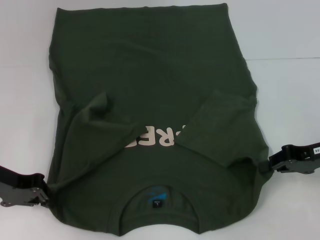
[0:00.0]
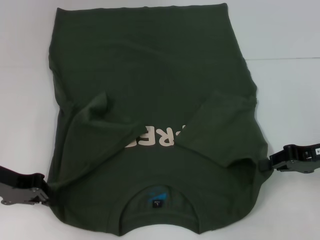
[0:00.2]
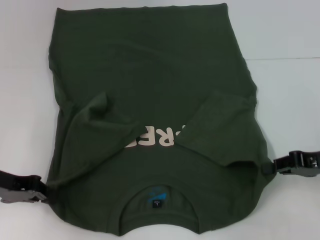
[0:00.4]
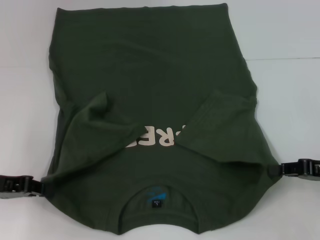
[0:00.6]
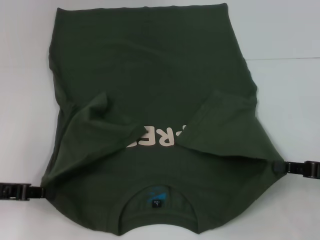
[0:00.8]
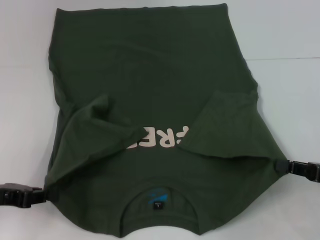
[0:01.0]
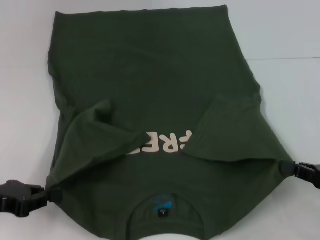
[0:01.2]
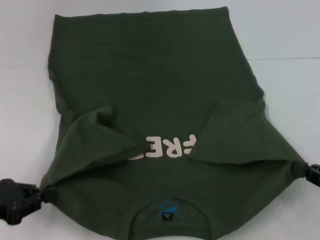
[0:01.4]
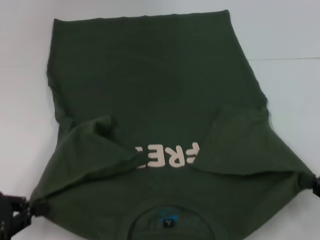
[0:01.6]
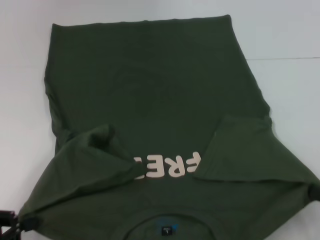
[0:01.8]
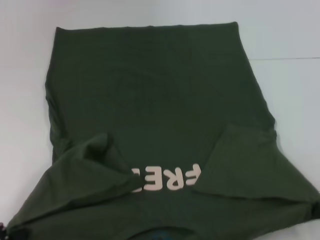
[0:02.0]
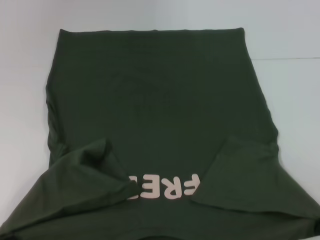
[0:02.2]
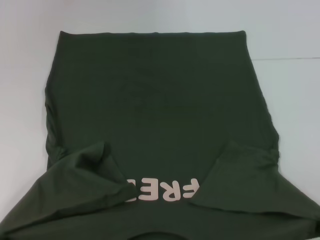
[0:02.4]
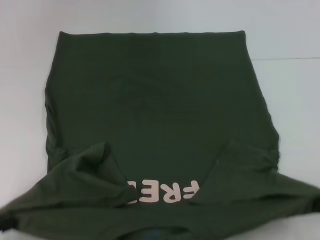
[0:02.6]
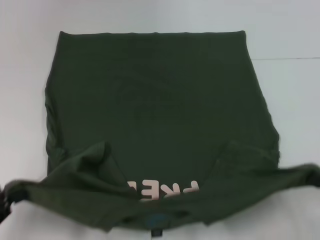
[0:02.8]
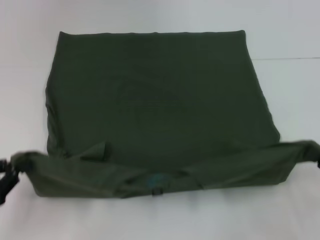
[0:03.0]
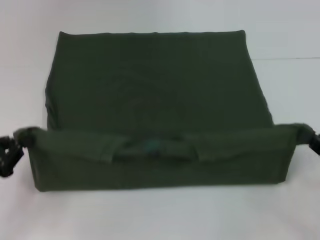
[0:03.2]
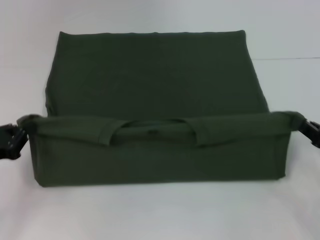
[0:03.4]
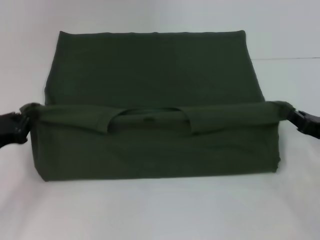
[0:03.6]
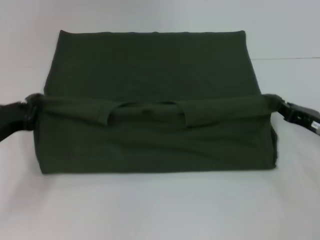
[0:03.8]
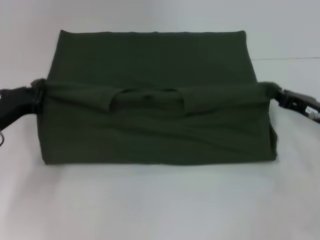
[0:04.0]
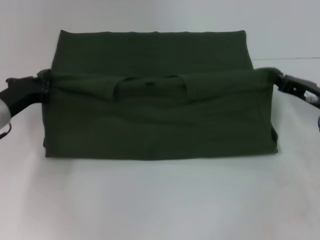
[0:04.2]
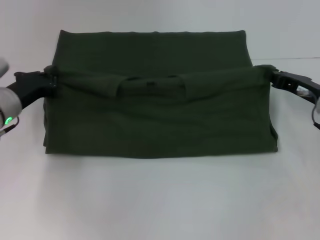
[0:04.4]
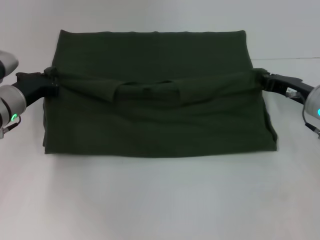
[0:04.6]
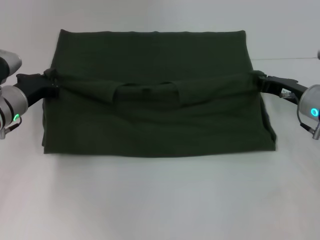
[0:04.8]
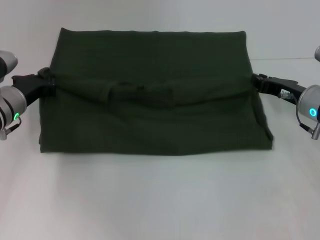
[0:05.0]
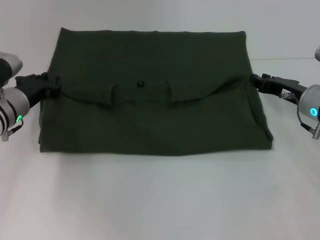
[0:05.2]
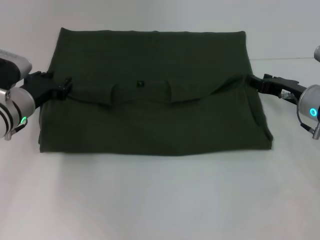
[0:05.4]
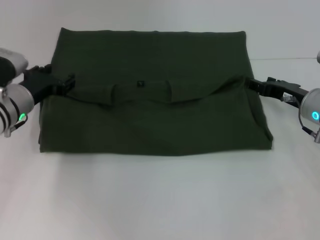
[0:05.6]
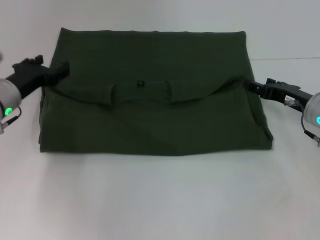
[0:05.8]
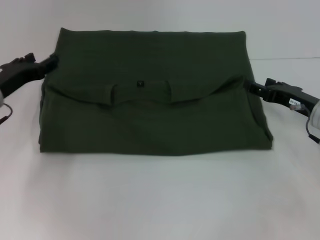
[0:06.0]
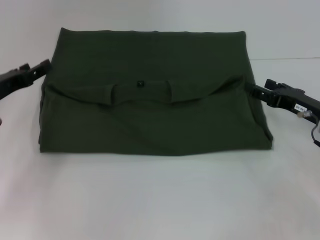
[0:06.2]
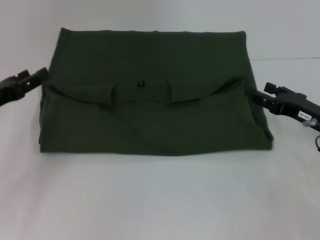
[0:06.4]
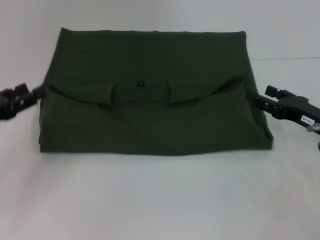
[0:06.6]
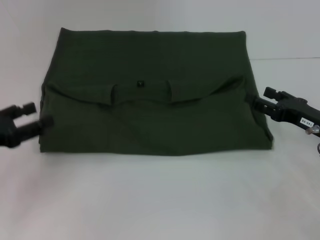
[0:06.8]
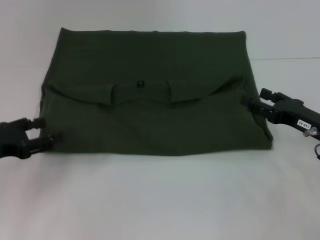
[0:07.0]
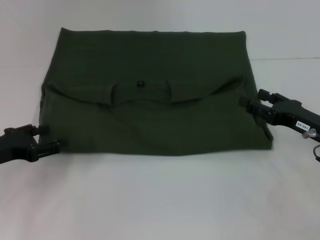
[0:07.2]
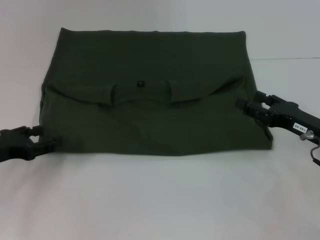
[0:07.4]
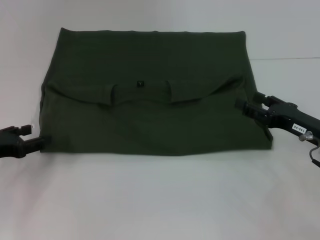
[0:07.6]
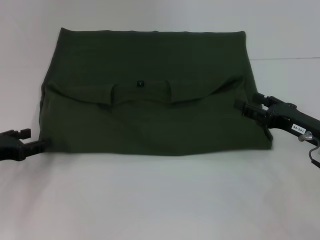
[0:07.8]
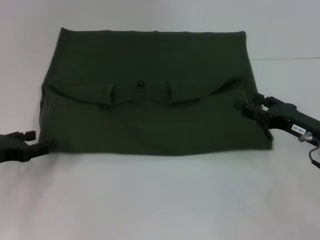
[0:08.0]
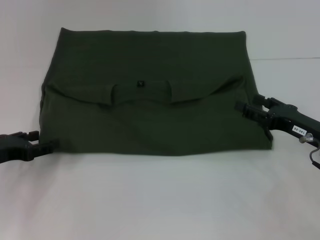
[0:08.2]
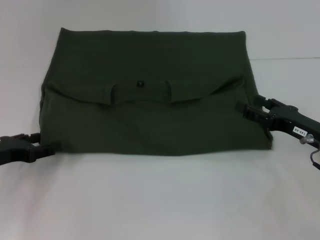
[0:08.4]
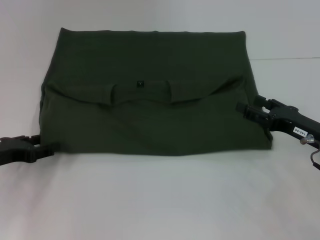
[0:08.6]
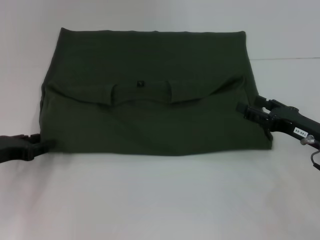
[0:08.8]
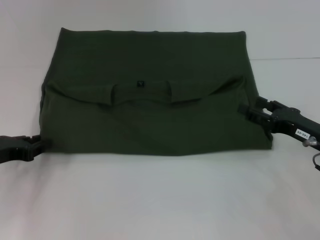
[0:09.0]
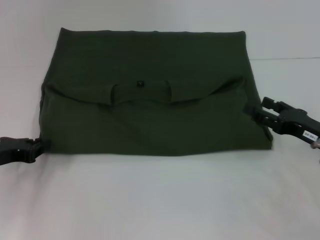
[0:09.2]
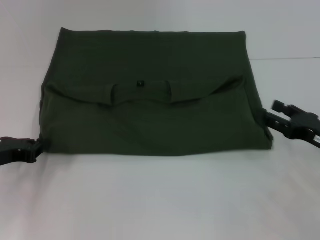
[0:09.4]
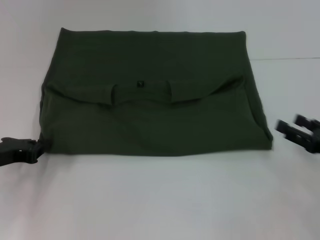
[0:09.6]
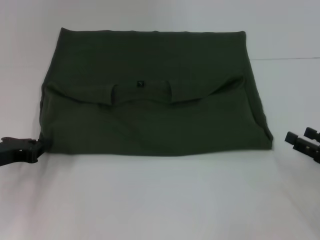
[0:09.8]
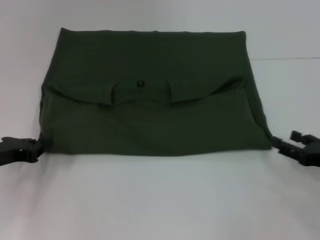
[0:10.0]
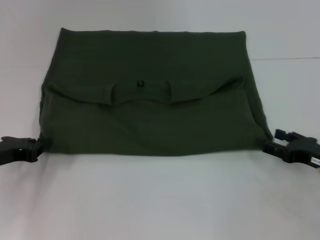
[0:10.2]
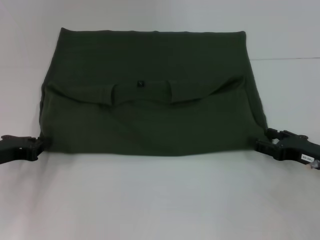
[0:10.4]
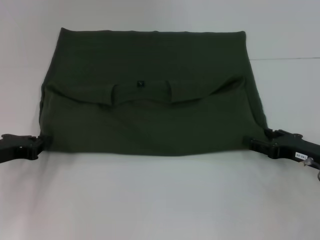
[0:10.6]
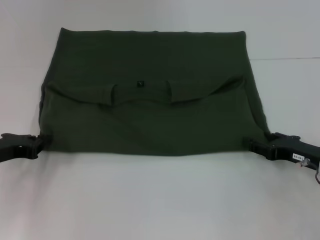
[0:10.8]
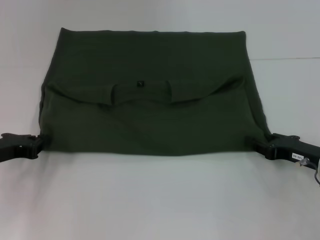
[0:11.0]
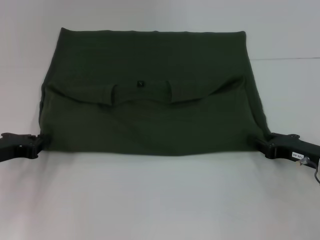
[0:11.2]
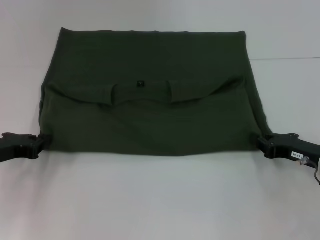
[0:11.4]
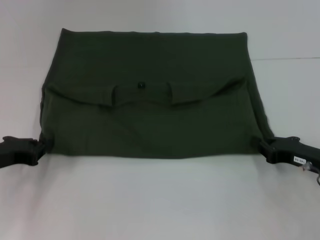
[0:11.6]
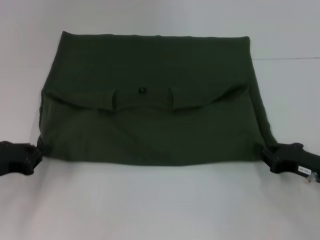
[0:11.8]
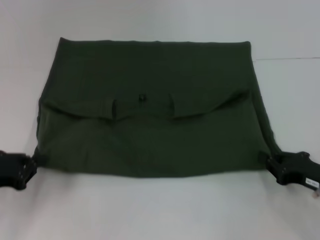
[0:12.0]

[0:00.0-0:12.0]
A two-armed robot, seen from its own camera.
Step, 0:01.2 to 0:05.4: Fold the clothes with your left hand.
Step, 0:01.2 to 0:05.4: Fold the clothes with your right hand.
0:00.0 to 0:01.6: The left gripper is displaced backward by roughly 10 cm, while the right gripper is displaced backward and downward by about 15 cm.
0:01.6 to 0:03.0: The right gripper travels backward and back again, about 10 cm each way. The left gripper goes backward and returns, roughly 10 cm each way.
0:03.0 to 0:04.4: The left gripper travels forward and to the right by approximately 20 cm. The right gripper shifts some 20 cm forward.
0:04.4 to 0:06.0: The right gripper opens its fingers; the left gripper opens.
0:06.0 to 0:07.6: The right gripper travels backward by roughly 5 cm. The left gripper is displaced backward by about 10 cm.
0:07.6 to 0:09.0: There are only small adjustments of the grippers.
0:10.4 to 0:12.0: The right gripper closes up.

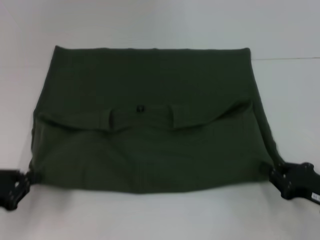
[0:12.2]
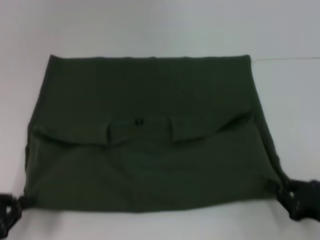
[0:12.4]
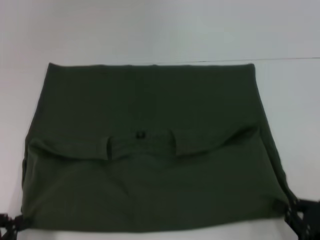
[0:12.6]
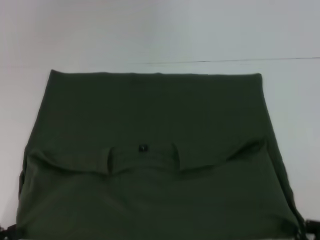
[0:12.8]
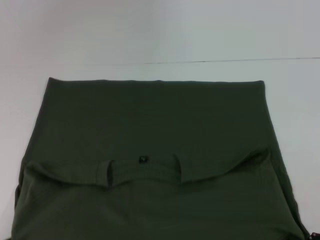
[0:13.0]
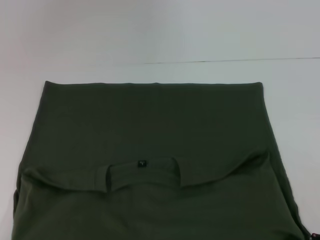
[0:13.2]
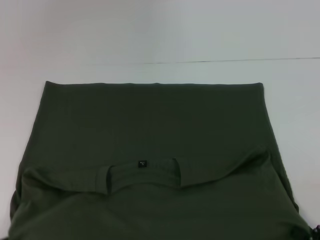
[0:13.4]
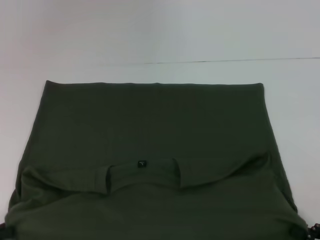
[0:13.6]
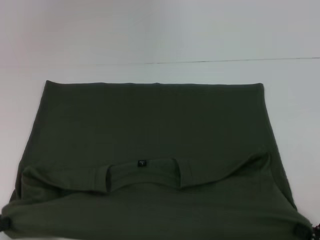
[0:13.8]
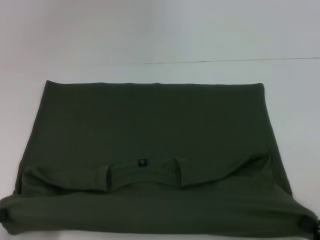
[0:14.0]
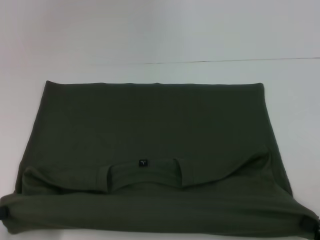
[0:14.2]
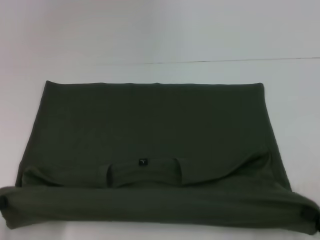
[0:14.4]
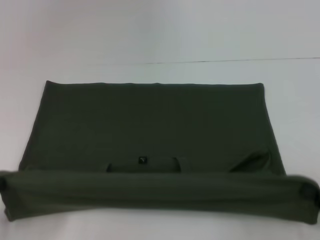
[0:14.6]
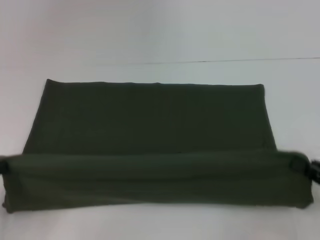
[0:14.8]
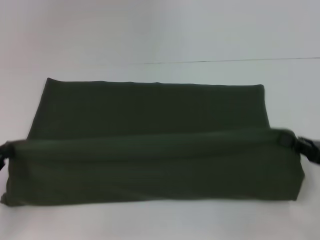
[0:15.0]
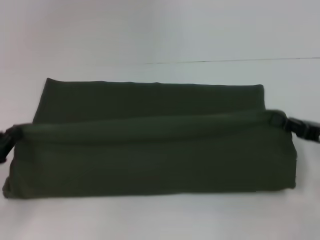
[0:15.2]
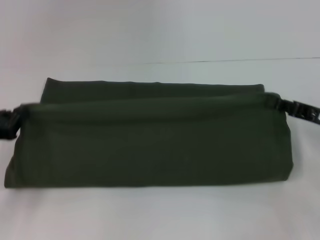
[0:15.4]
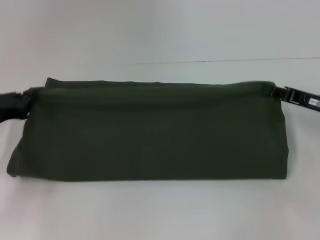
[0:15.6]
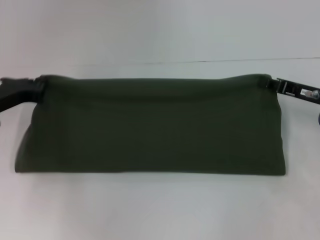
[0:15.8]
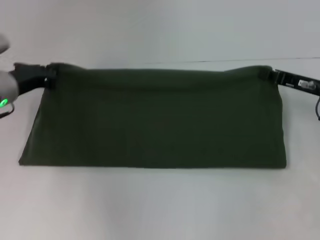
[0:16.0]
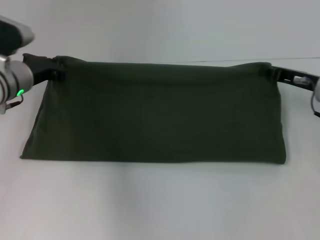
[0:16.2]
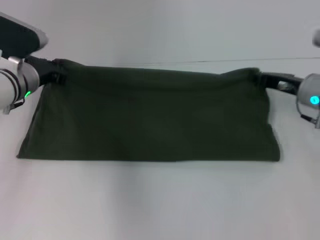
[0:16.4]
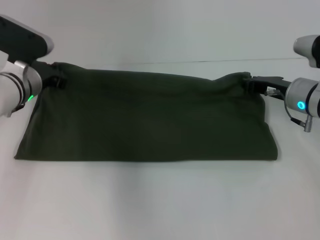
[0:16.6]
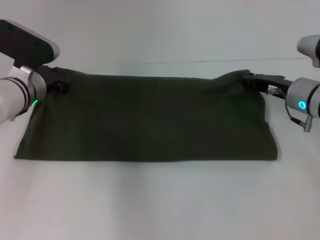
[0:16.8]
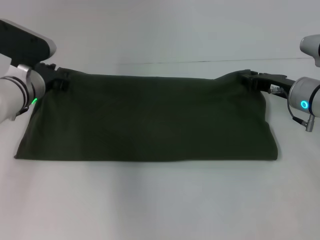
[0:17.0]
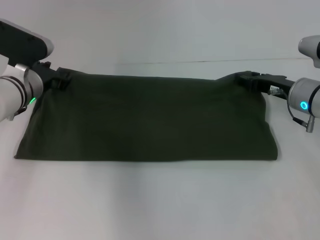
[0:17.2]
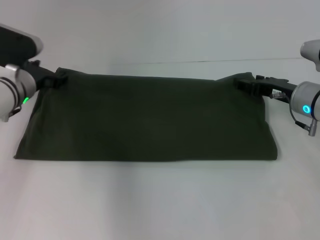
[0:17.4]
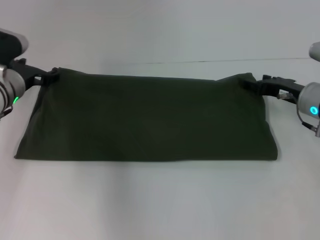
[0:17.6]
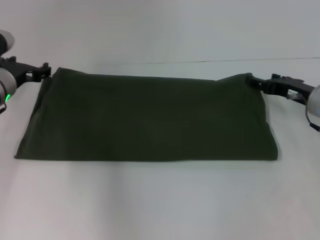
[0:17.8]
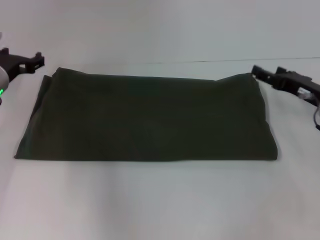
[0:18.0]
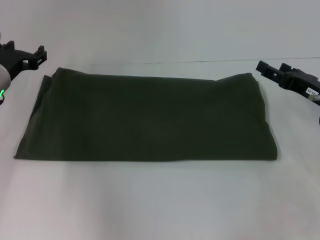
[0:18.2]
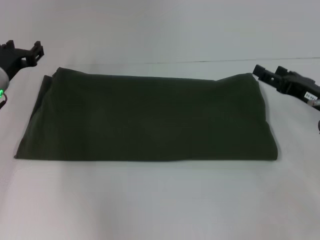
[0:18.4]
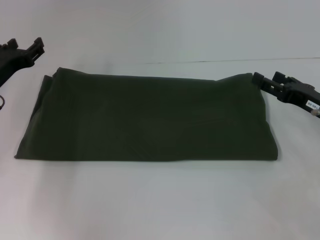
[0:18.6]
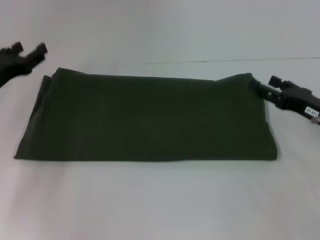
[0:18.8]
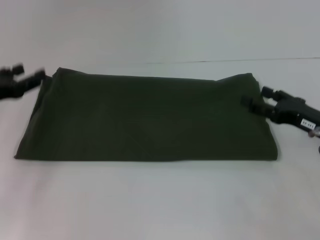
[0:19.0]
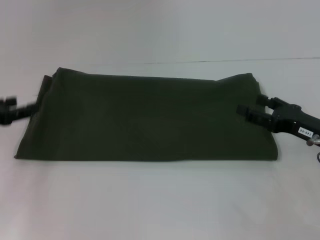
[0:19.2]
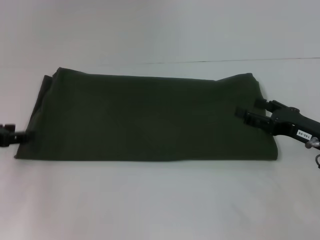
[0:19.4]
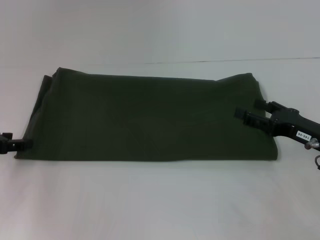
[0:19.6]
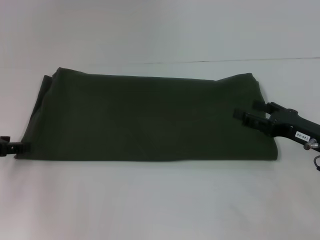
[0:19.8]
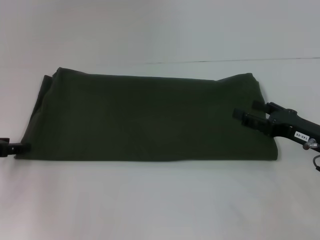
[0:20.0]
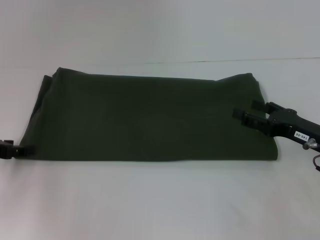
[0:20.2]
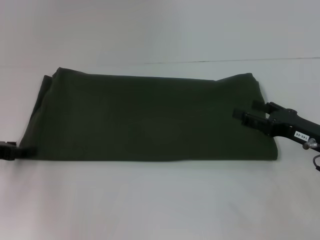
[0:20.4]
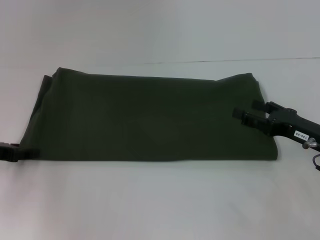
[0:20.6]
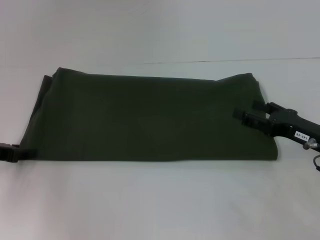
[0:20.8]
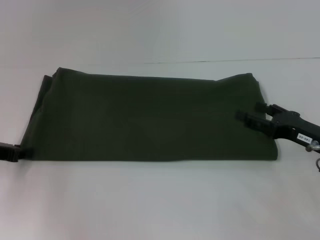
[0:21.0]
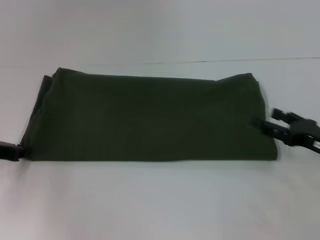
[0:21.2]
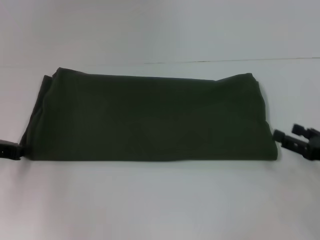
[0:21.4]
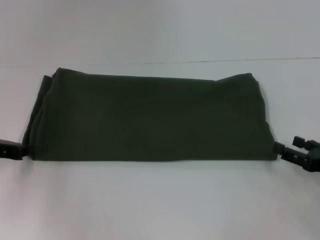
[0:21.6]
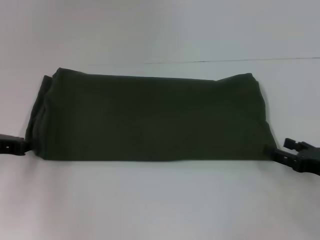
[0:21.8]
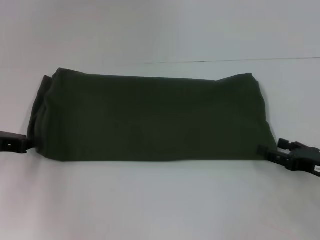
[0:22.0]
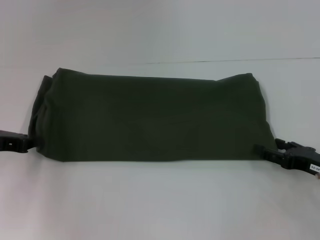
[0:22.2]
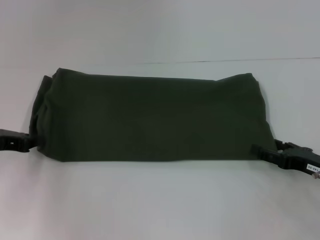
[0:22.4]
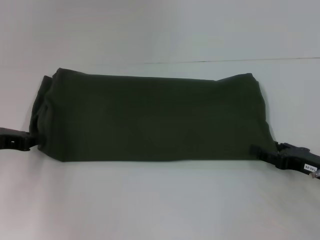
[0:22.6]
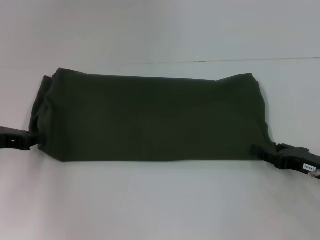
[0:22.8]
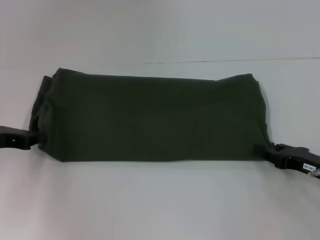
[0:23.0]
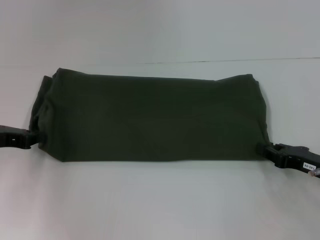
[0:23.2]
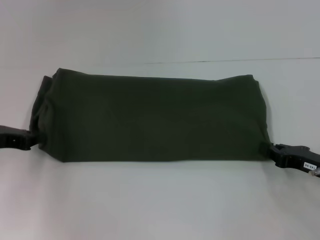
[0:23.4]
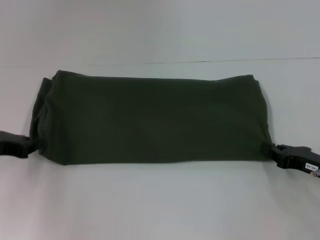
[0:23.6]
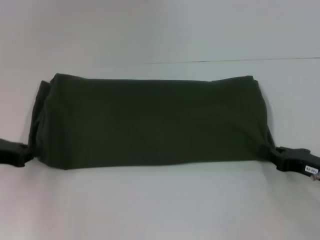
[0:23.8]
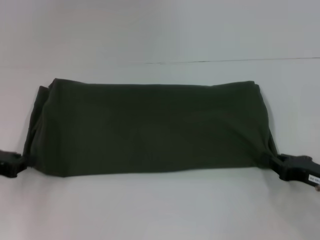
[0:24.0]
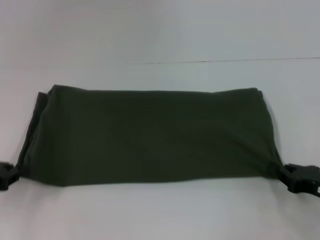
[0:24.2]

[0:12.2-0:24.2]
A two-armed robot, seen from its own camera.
Step, 0:13.8 to 0:20.2: Fold the clothes with your right hand.
0:12.2 to 0:13.8: Both grippers move backward, approximately 10 cm.
0:13.8 to 0:15.2: The right gripper is displaced forward by roughly 15 cm. The left gripper shifts approximately 10 cm forward.
0:15.2 to 0:16.6: The left gripper is displaced forward and to the right by some 20 cm. Meanwhile the right gripper shifts about 15 cm forward and to the left.
0:16.6 to 0:18.2: The left gripper opens up; the right gripper is displaced backward and to the right by about 5 cm, and opens its fingers.
0:18.2 to 0:19.8: The left gripper shifts approximately 15 cm backward and to the left; the right gripper goes some 5 cm backward.
0:21.2 to 0:22.6: The grippers move only a little.
0:22.6 to 0:24.2: The right gripper closes up, while the left gripper shifts some 5 cm backward.
